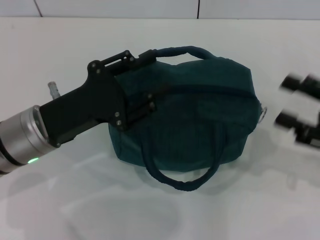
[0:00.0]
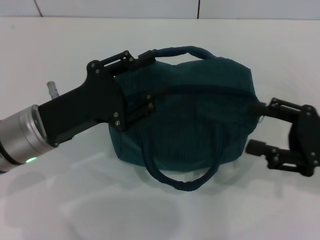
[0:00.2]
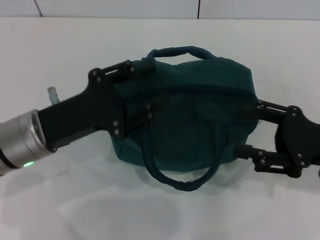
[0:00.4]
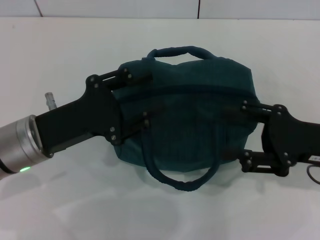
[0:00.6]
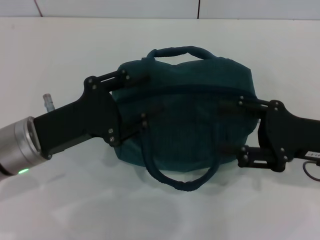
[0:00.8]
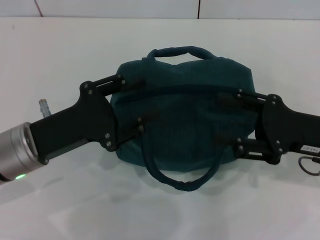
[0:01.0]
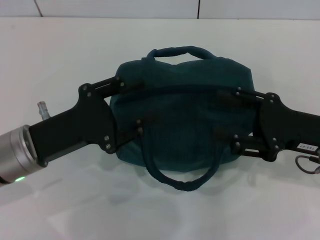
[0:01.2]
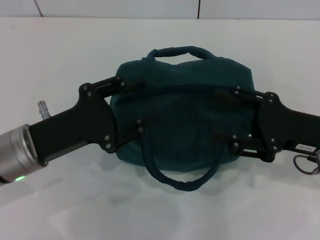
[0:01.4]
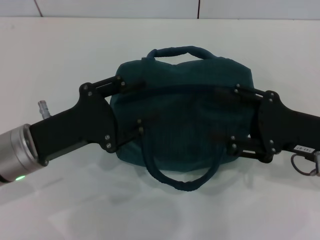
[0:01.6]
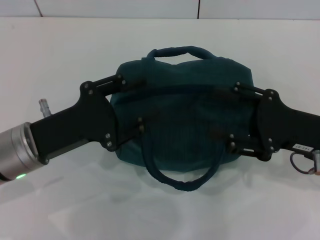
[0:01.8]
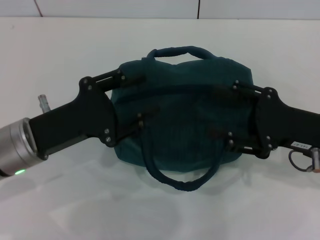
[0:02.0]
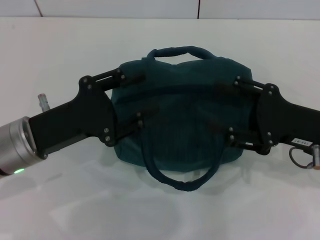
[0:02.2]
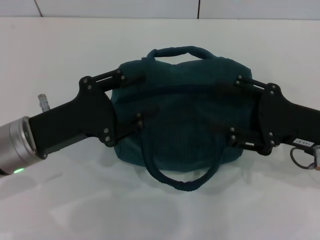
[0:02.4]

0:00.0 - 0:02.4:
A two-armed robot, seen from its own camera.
0:00.0 - 0:01.2: The right gripper heads to the left, covering approximately 5 cm.
0:01.2 - 0:02.4: The grippers move only a little.

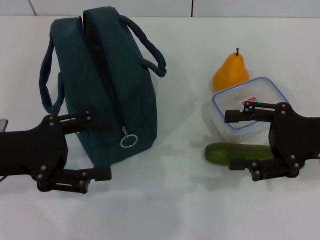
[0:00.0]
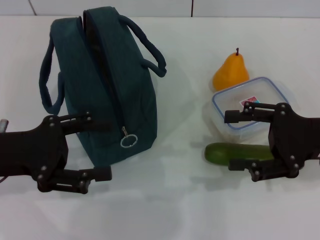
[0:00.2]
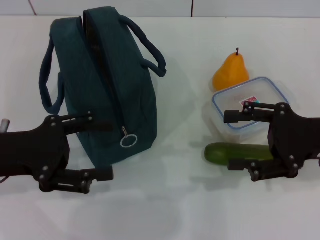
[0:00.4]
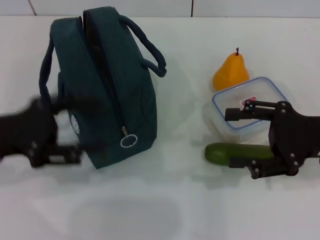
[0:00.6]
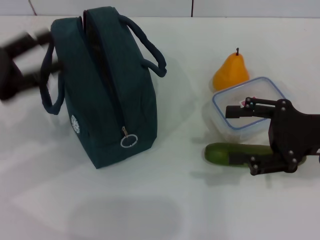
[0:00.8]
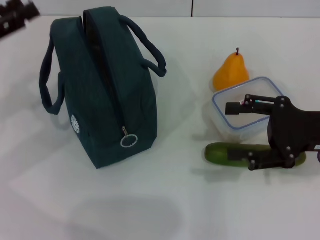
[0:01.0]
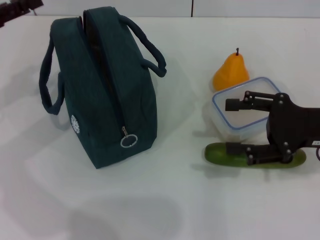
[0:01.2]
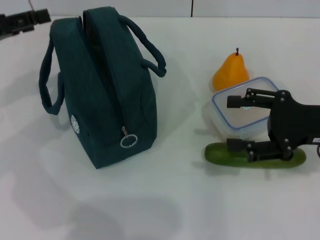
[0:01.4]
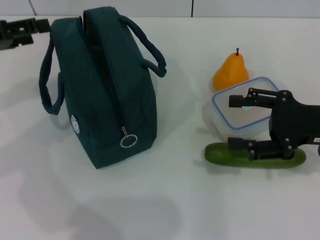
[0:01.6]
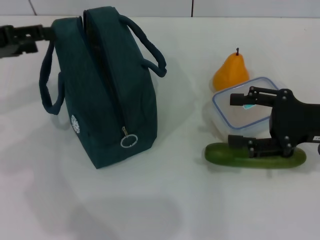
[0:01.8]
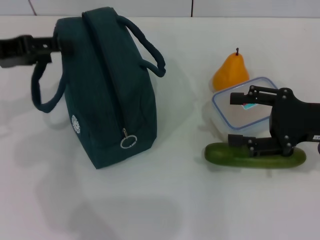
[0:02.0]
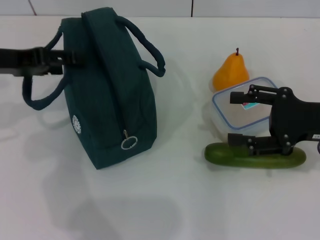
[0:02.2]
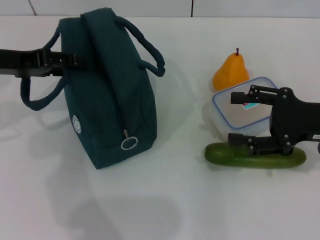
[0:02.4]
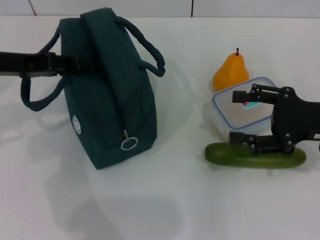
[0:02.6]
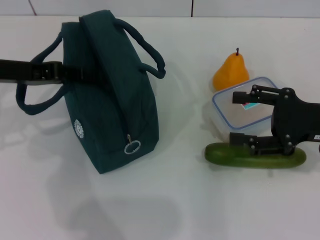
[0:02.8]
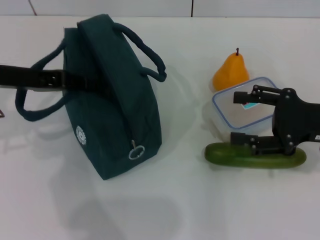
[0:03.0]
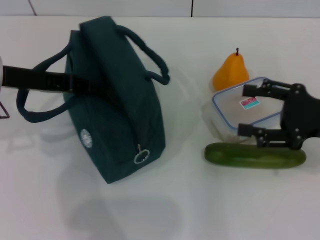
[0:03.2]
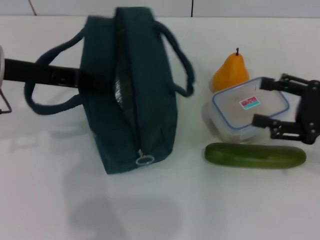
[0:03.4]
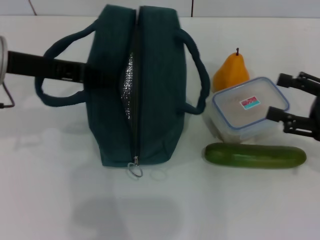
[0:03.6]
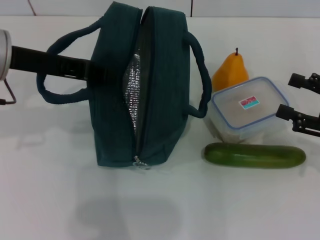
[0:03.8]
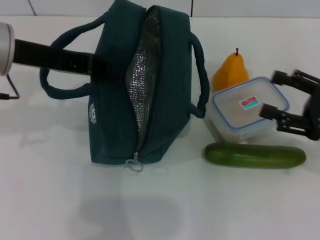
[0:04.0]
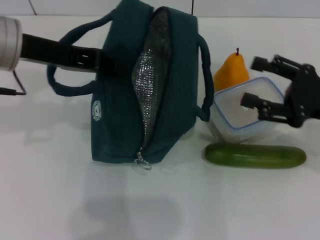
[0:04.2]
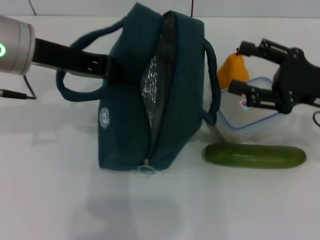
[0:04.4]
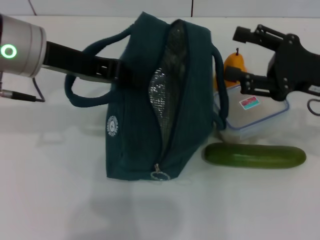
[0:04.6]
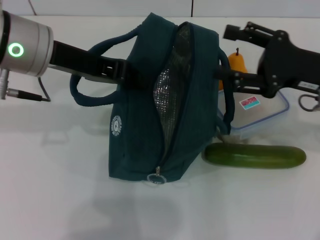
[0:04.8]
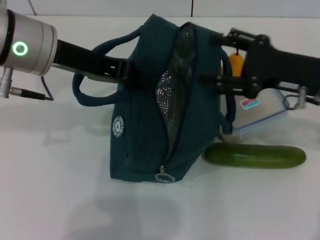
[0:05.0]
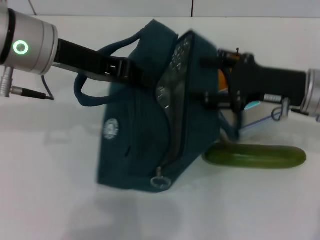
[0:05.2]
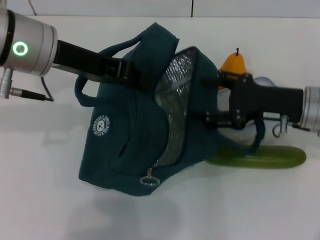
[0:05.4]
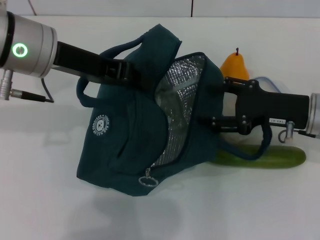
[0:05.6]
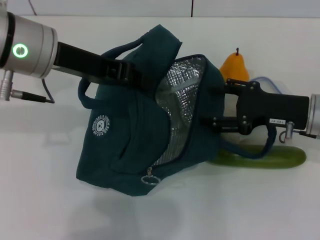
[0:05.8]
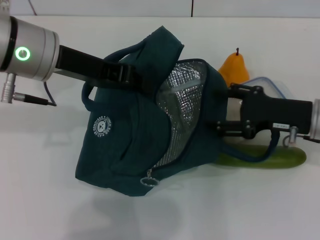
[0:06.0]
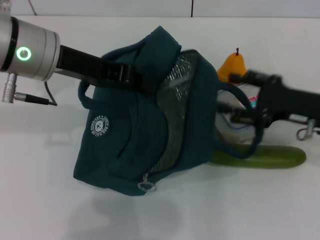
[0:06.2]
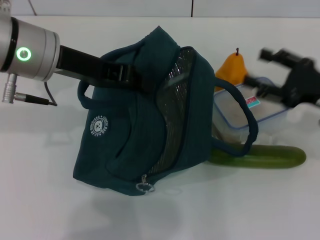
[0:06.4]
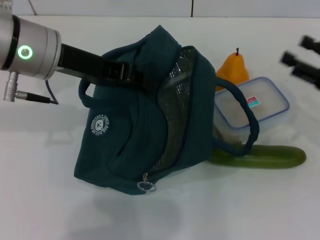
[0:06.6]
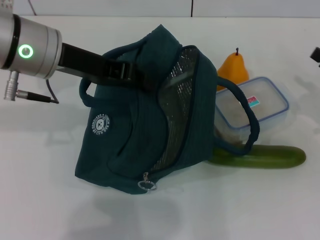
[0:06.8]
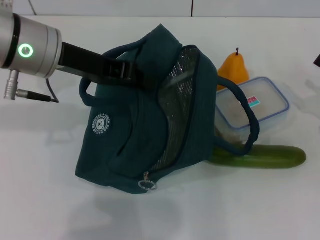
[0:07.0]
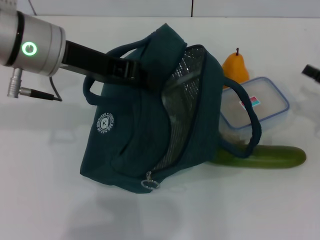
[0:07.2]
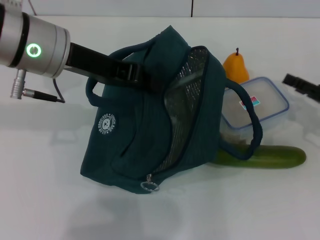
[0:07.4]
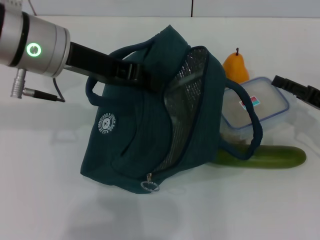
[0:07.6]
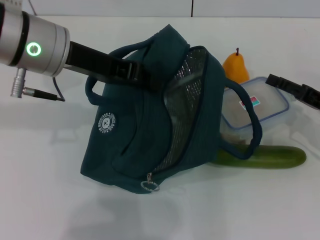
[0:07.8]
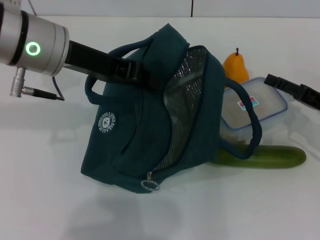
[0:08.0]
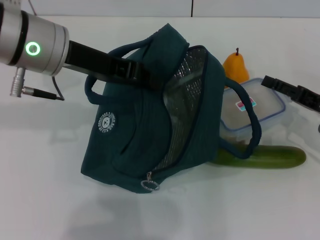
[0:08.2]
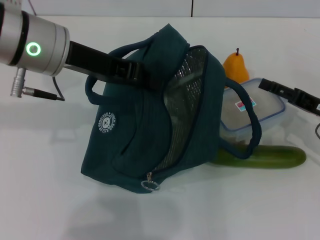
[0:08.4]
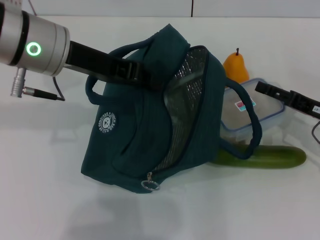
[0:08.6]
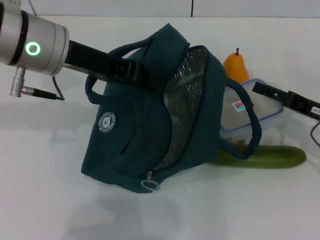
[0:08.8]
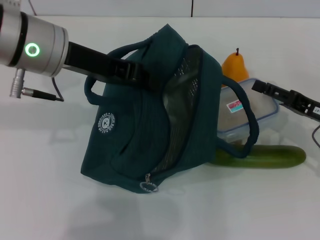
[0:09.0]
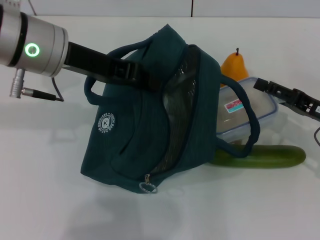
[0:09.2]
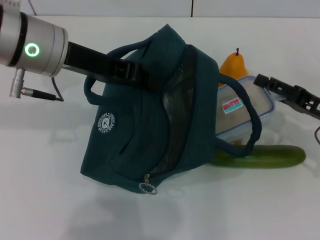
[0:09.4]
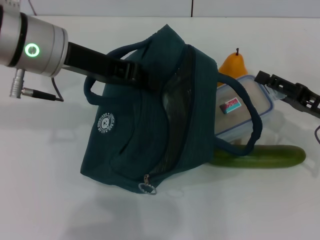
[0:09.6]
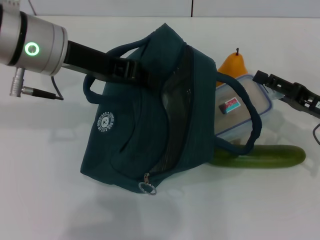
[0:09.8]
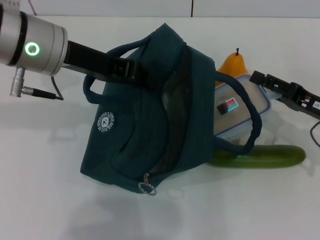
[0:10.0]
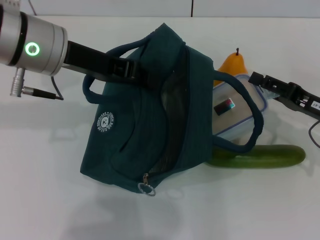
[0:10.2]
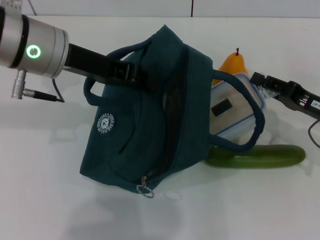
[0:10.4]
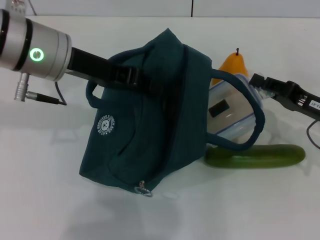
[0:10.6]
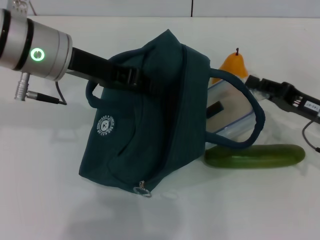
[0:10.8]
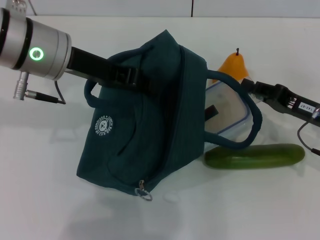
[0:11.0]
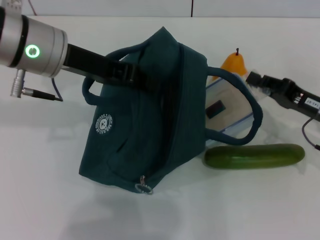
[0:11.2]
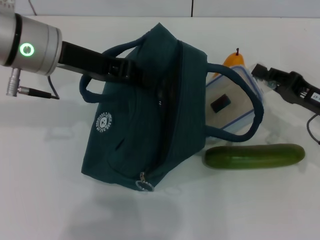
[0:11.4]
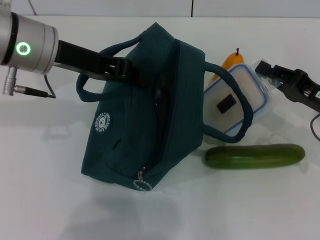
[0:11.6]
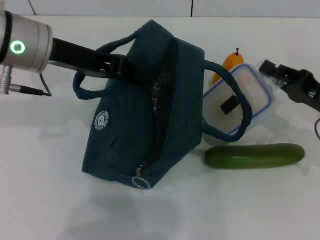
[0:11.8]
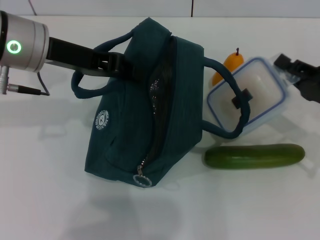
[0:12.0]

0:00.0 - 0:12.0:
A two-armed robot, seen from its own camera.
Step, 0:00.0 - 0:03.4: Hold the lunch bag with your left hand.
Step, 0:03.6 - 0:10.6: Pick up the lunch box with your right hand.
0:00.0 - 0:01.6: The left gripper shifts about 10 cm forward, to the left and upward.
0:01.6 - 0:03.0: The left gripper heads to the right, covering roughly 5 cm, and closes its fingers.
0:03.0 - 0:04.4: The left gripper travels to the right and upward by about 10 cm, and closes up.
0:04.4 - 0:06.0: The right gripper shifts by about 5 cm.
0:06.0 - 0:07.6: The right gripper goes some 10 cm to the right.
0:07.6 - 0:10.4: The grippers make only small movements.
0:10.4 - 0:12.0: The right gripper closes.

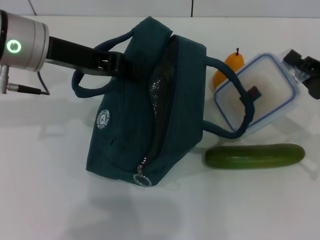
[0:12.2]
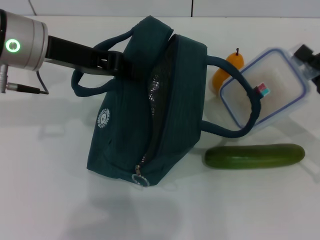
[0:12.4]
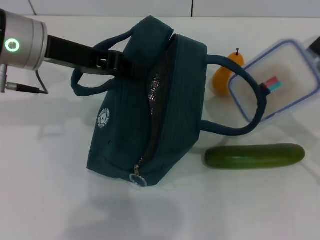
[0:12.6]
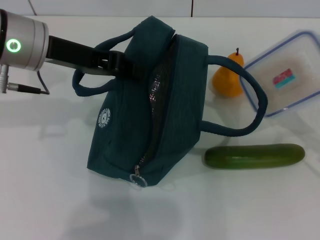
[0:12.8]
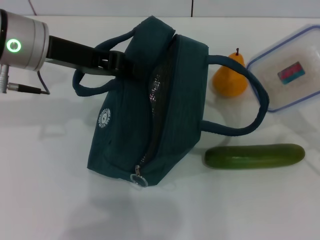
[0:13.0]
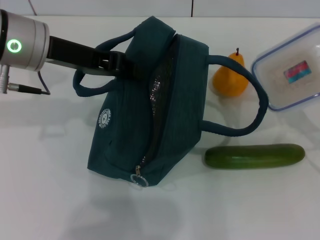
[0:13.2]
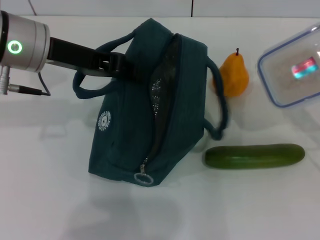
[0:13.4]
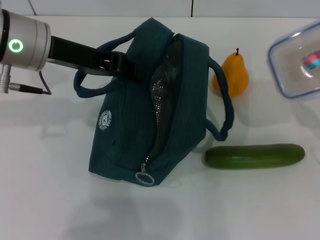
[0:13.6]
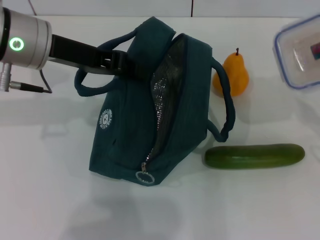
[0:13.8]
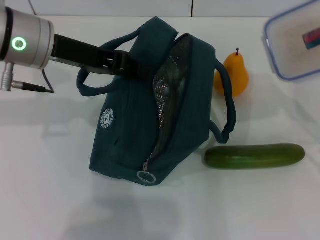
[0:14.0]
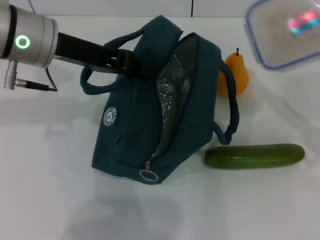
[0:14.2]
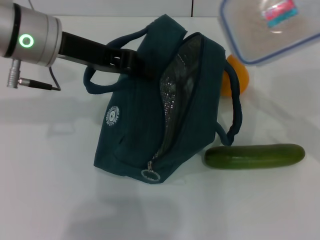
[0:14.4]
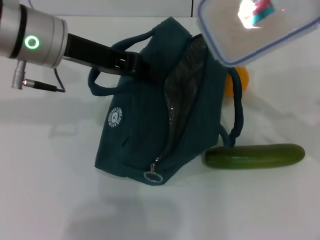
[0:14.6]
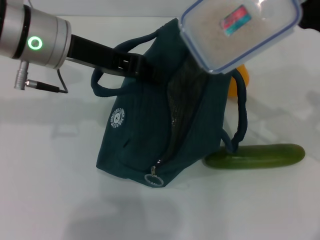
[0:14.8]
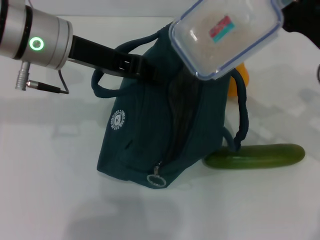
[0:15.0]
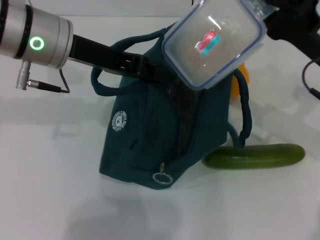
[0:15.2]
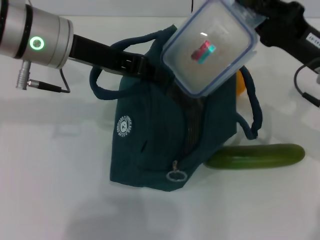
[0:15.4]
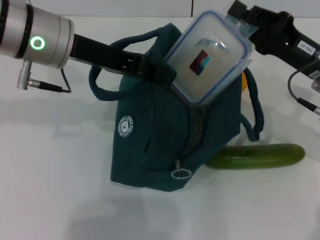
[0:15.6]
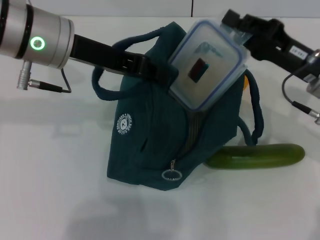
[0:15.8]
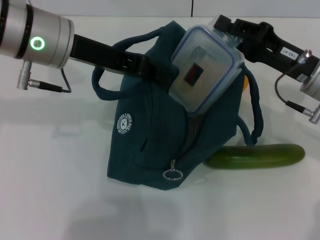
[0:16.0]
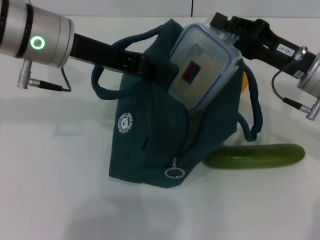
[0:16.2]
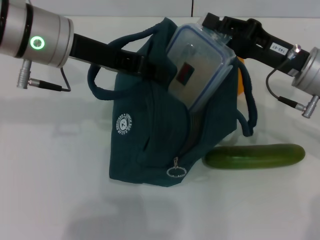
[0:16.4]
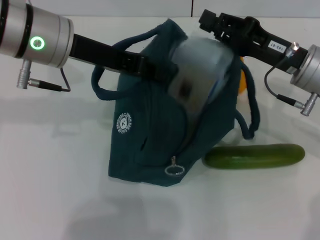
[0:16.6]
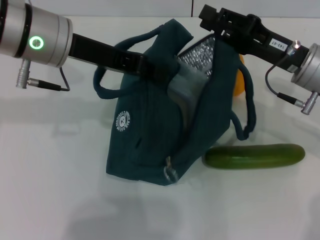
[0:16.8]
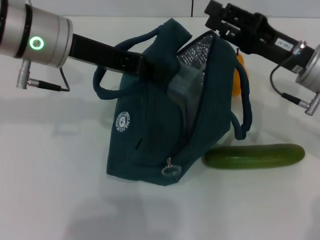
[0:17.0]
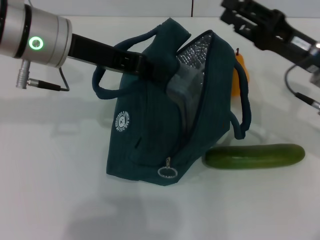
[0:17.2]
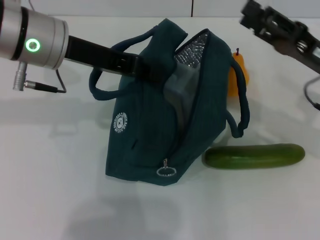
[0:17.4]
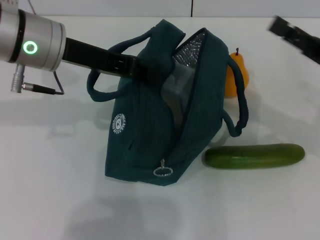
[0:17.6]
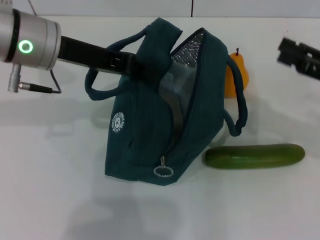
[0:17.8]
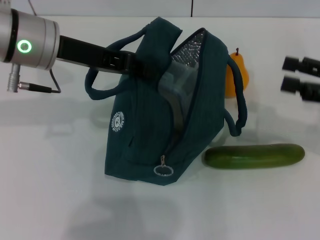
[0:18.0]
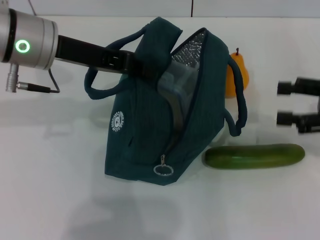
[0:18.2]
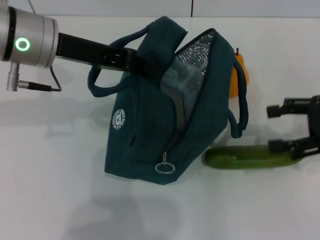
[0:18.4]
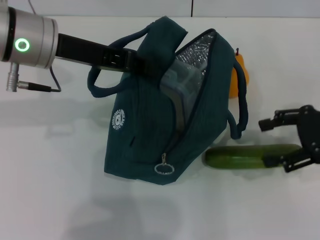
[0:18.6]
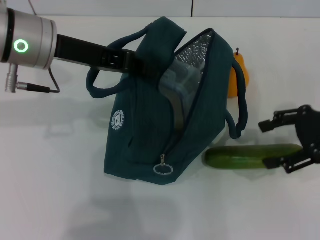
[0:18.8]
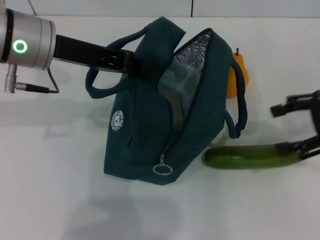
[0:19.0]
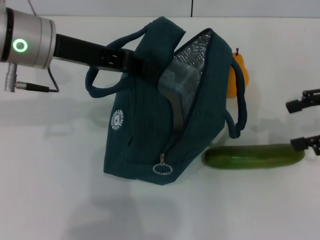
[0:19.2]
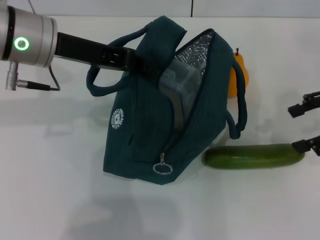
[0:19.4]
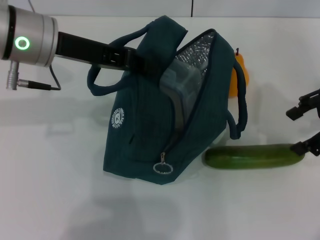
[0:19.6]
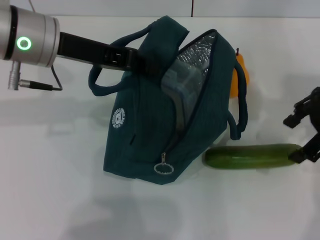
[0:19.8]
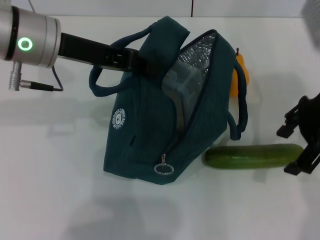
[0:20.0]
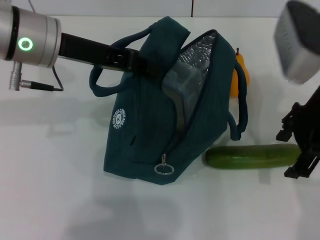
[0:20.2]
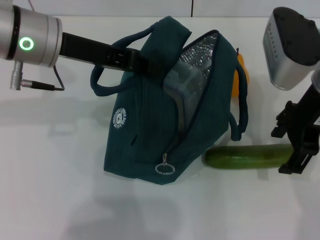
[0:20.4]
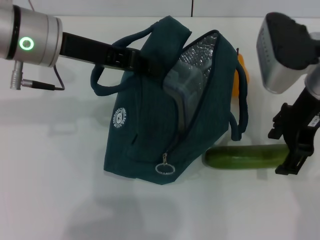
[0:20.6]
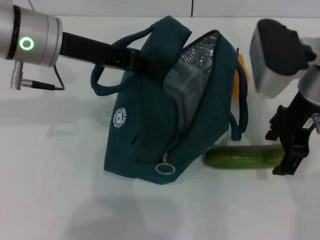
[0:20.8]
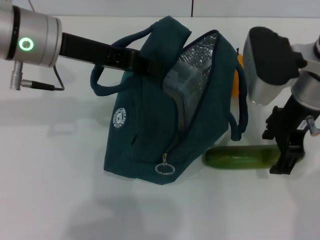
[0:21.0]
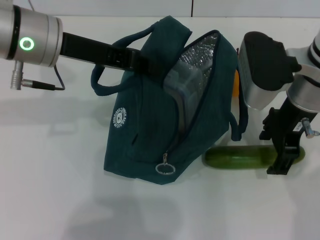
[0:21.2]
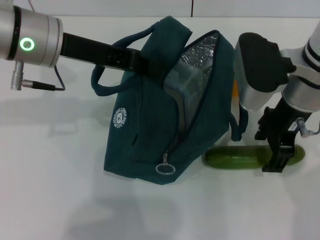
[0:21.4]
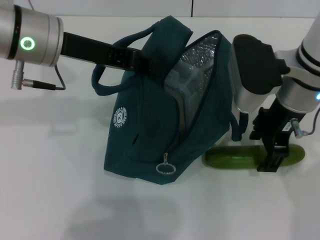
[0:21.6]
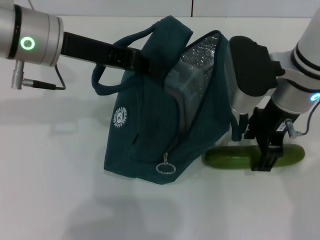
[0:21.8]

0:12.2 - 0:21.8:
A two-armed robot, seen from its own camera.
Step, 0:12.2 - 0:16.6: Place the lunch box into the lunch bag with your right hand.
0:12.2 - 0:13.8: The right gripper ends up approximately 5 cm from where it was.
0:13.8 - 0:15.4: The right gripper moves to the left and forward, roughly 15 cm.
0:15.4 - 0:17.0: The right gripper opens its fingers.
0:17.0 - 0:18.6: The right gripper shifts approximately 10 cm to the right, and opens up.
0:18.6 - 0:20.2: The right gripper heads to the left and upward, covering some 15 cm.
0:20.2 - 0:21.8: The right gripper shifts some 5 cm downward.
